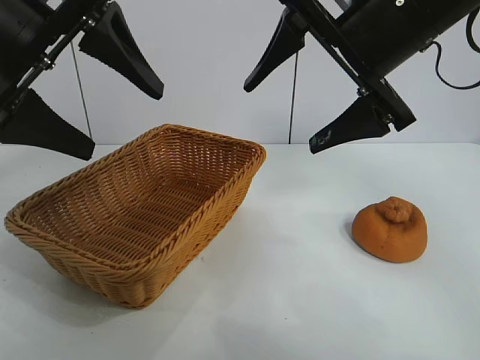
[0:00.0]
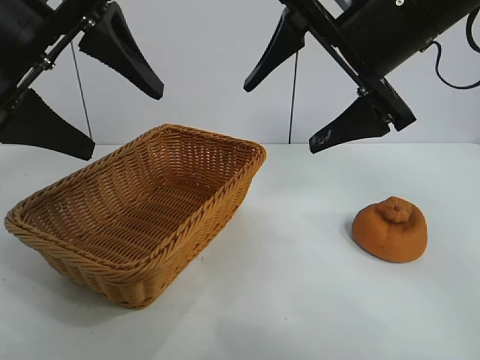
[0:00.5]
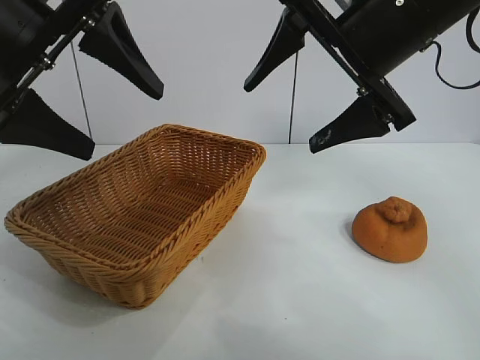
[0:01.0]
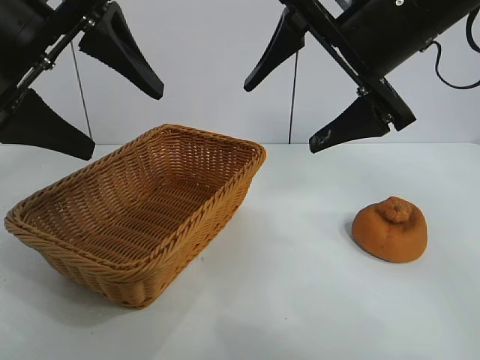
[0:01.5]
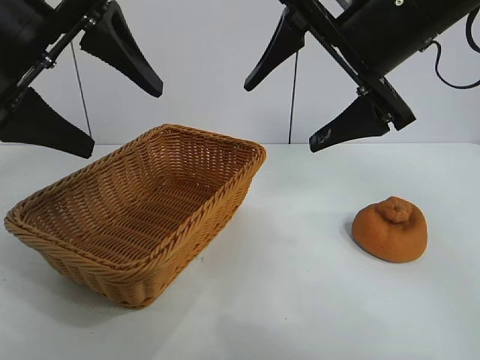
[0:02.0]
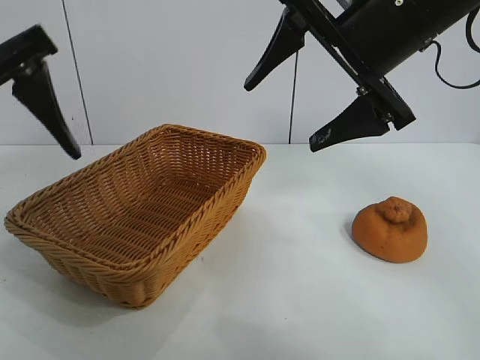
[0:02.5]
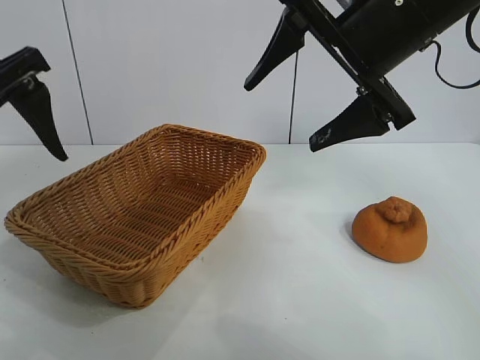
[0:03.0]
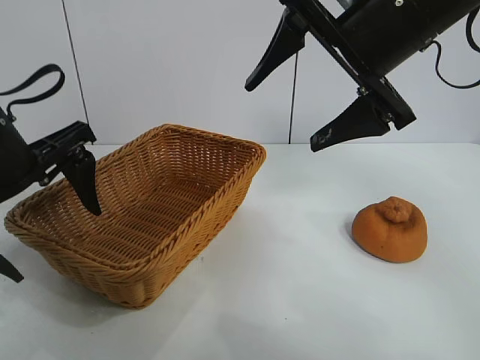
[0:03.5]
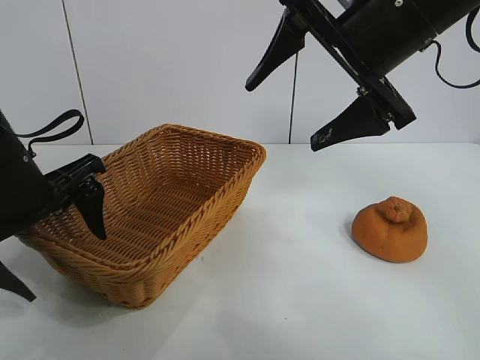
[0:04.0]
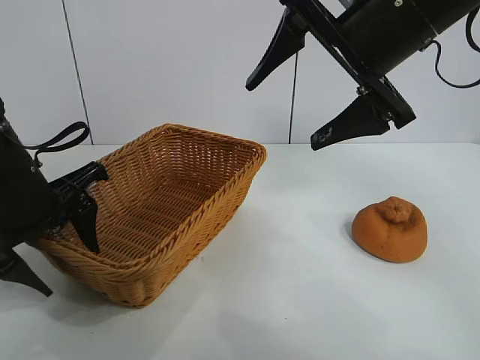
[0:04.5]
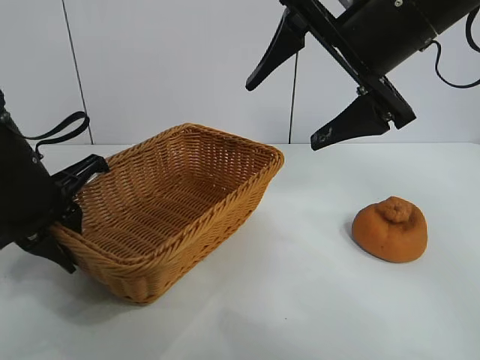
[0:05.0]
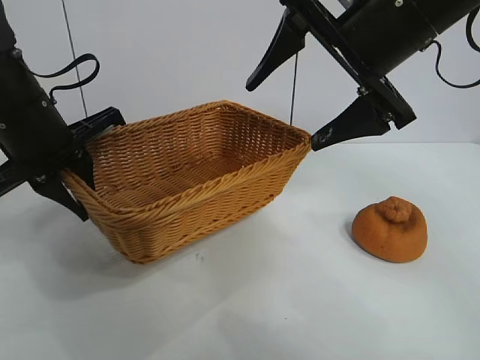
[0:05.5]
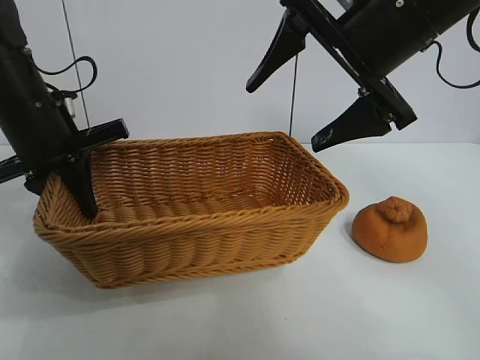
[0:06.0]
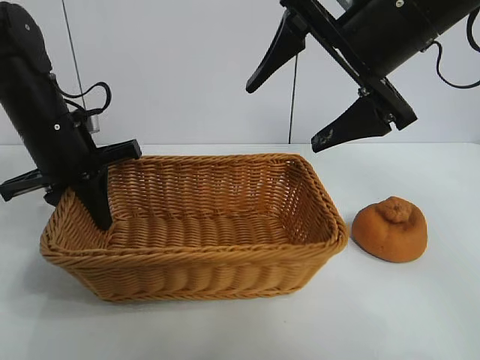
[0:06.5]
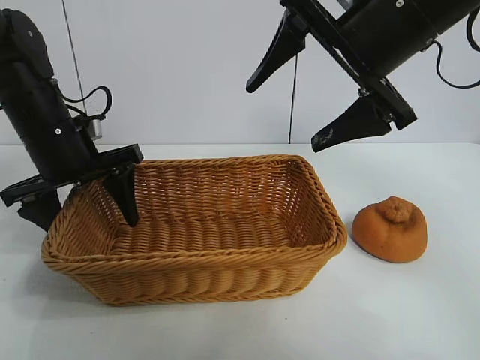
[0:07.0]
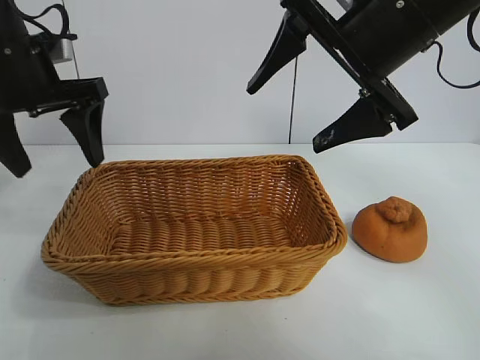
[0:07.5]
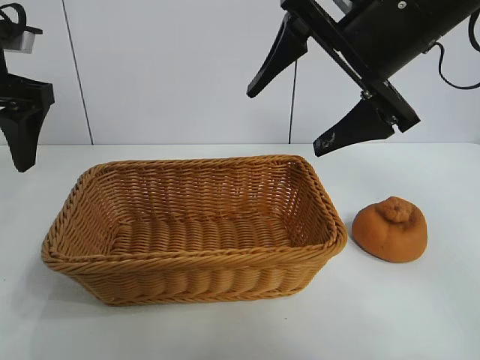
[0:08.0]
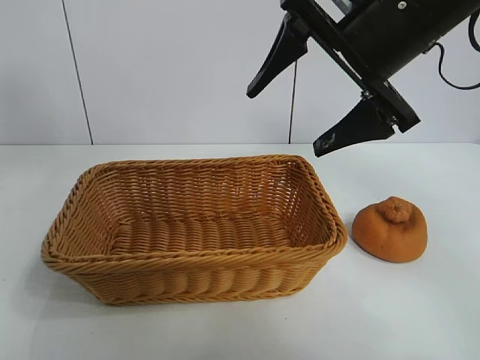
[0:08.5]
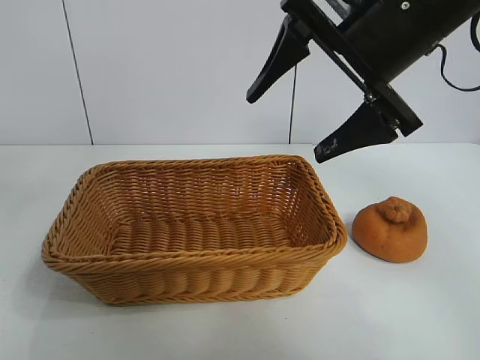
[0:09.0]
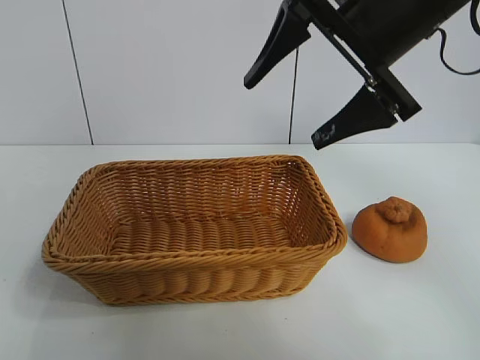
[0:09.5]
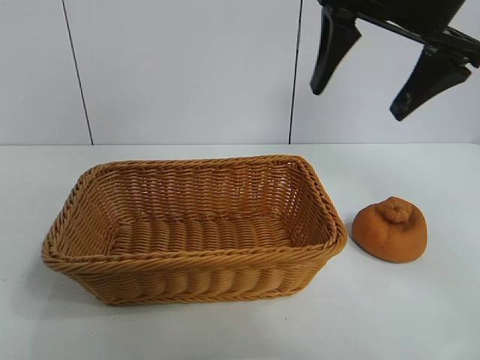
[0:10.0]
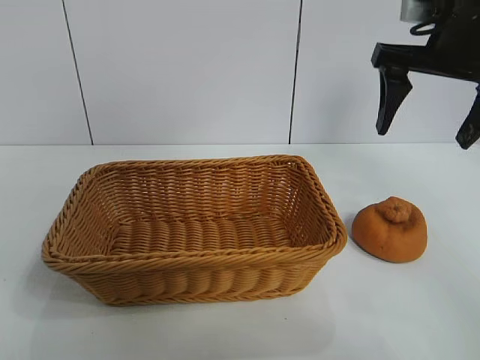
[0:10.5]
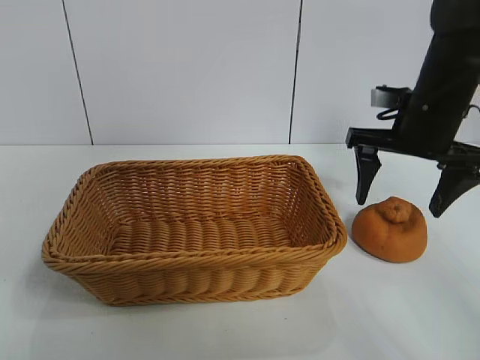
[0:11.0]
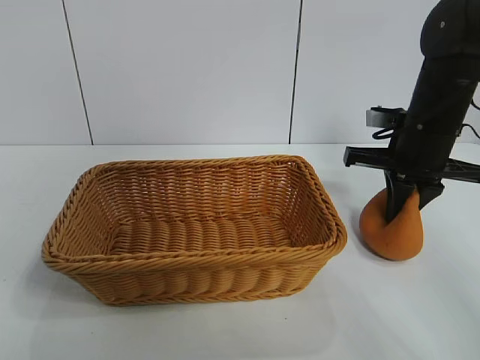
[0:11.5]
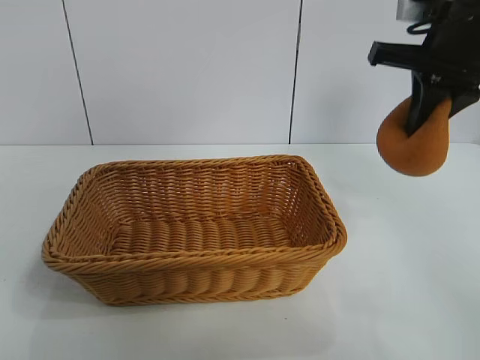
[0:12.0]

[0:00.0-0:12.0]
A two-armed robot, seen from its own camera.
Task of the whole recording: pick up the orange and put it into the basket.
Step, 0:02.0 to 0:04.5: Grasp the basket with left gripper.
Step, 0:05.0 to 0:07.0: Place the basket in the center of view with left gripper.
Step, 0:07.5 to 0:11.5: Grasp the orange with right gripper.

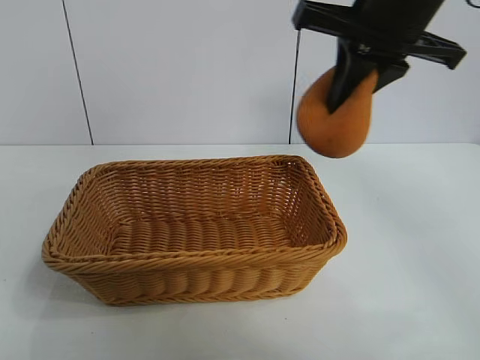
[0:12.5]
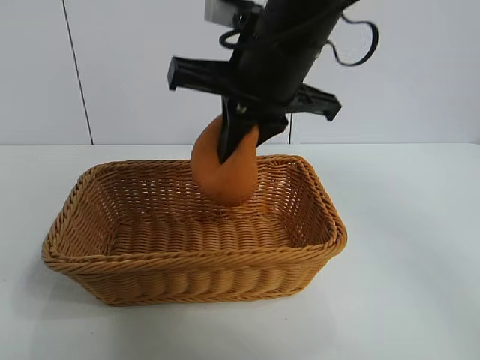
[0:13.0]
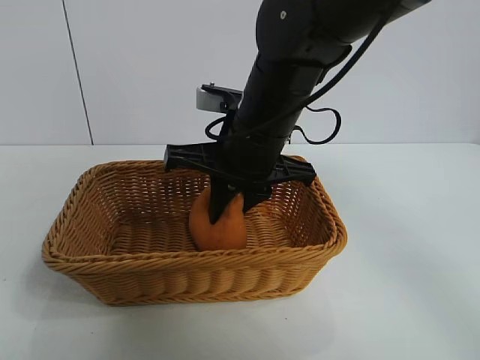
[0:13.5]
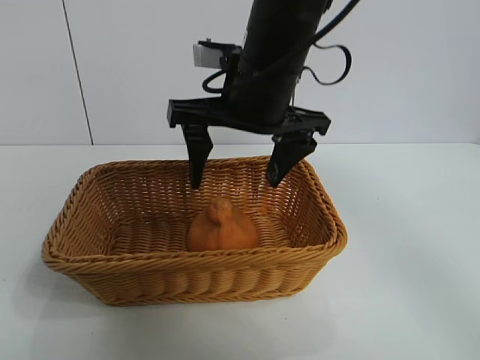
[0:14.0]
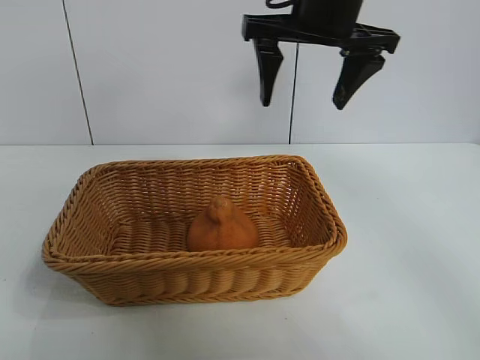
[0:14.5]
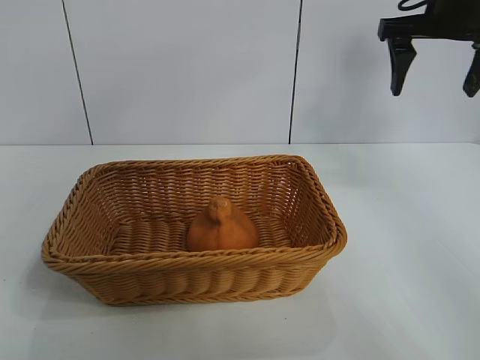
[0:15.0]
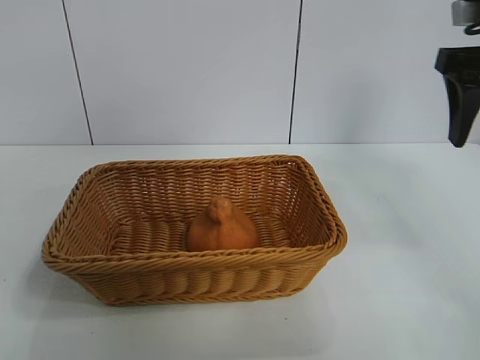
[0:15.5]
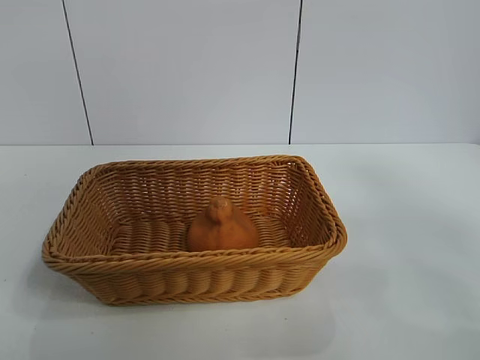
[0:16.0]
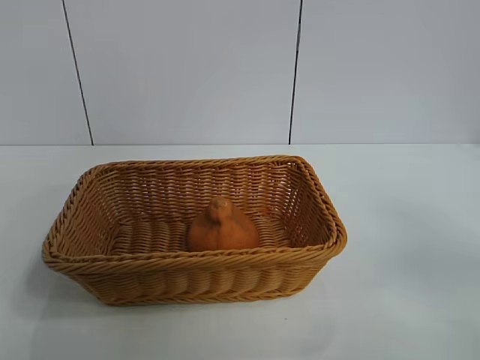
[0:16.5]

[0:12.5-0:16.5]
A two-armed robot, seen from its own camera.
Task of the whole recording: pick up the orange and put it into the basket.
Step, 0:12.5 to 0:13.5: Place the orange in the basket with right gripper.

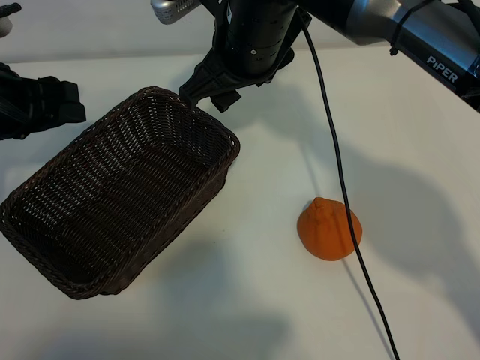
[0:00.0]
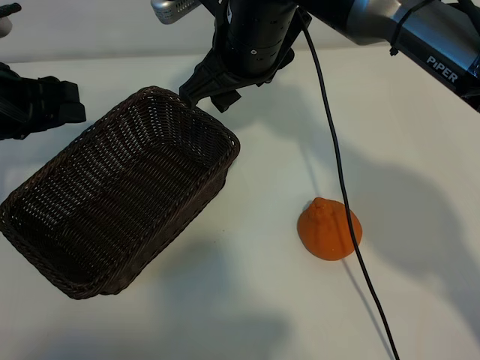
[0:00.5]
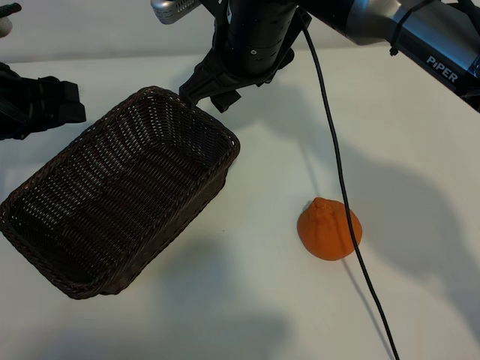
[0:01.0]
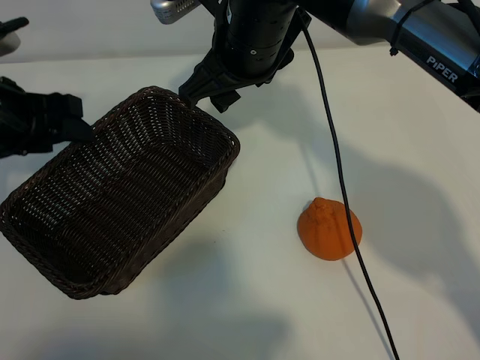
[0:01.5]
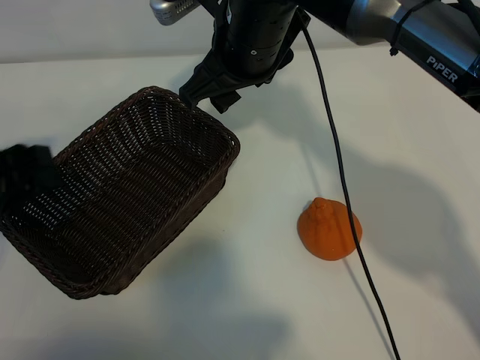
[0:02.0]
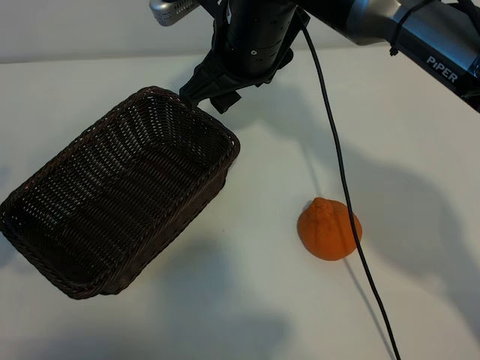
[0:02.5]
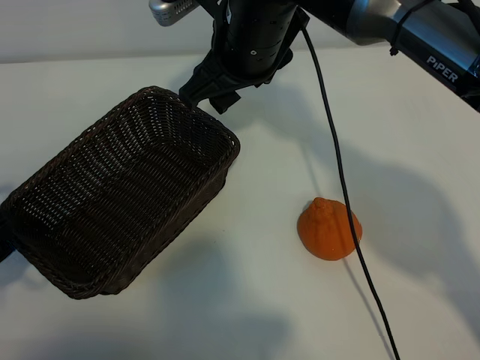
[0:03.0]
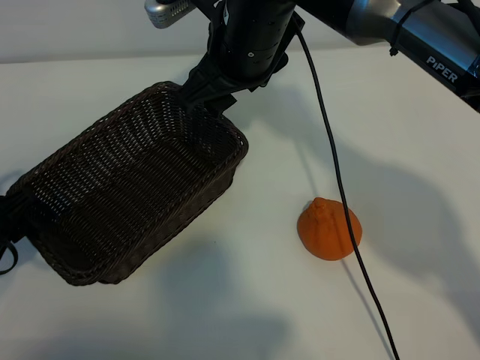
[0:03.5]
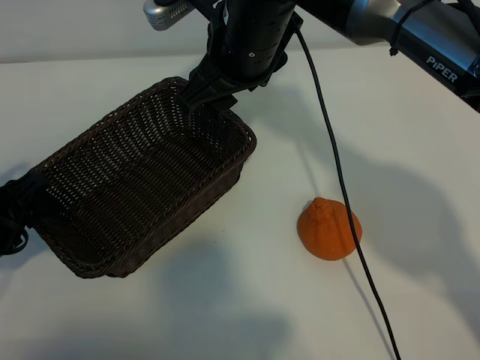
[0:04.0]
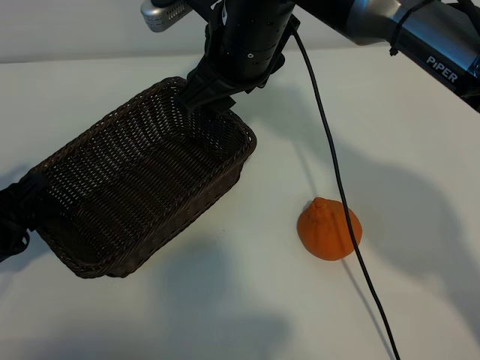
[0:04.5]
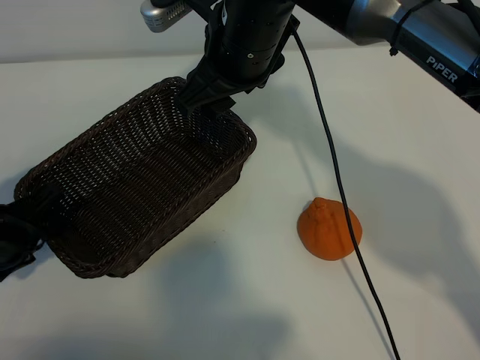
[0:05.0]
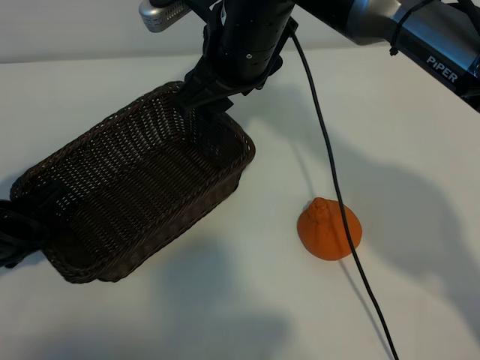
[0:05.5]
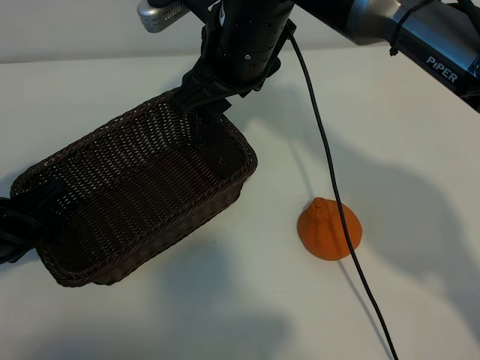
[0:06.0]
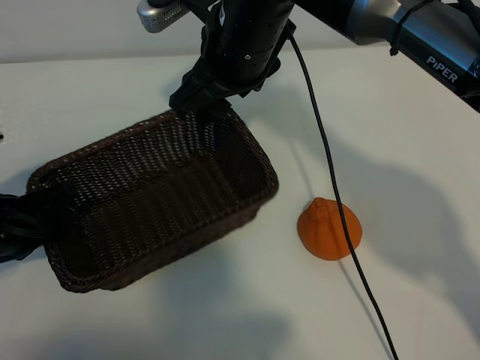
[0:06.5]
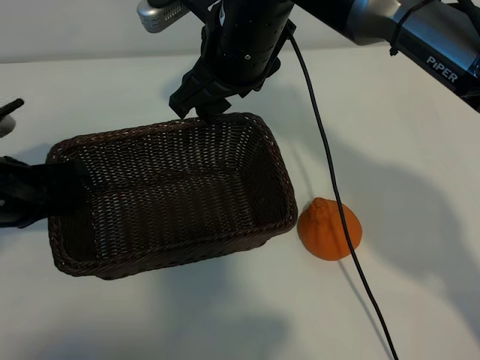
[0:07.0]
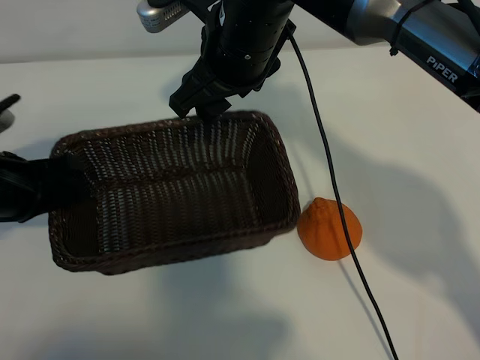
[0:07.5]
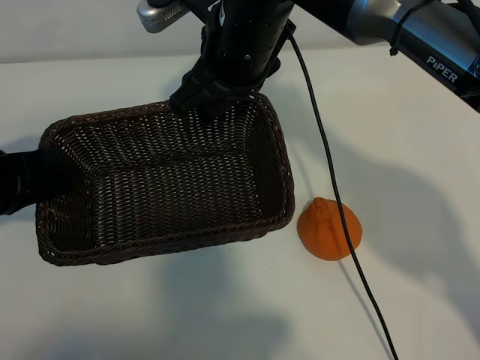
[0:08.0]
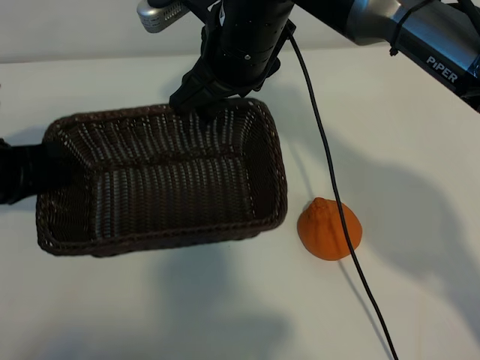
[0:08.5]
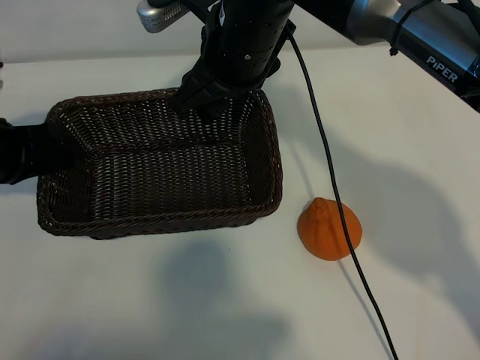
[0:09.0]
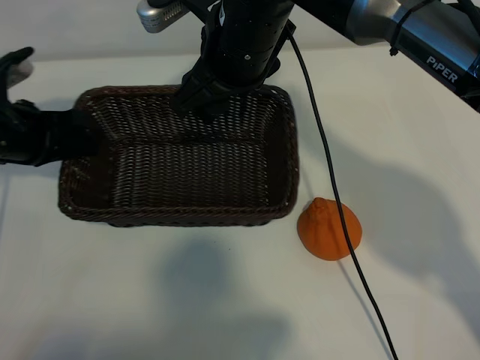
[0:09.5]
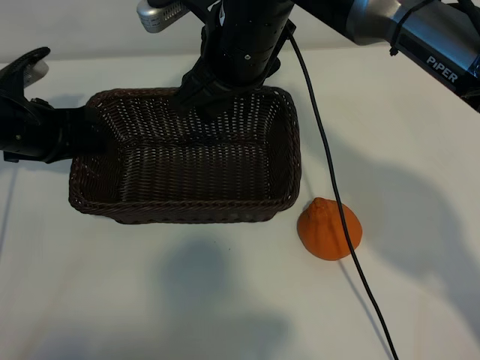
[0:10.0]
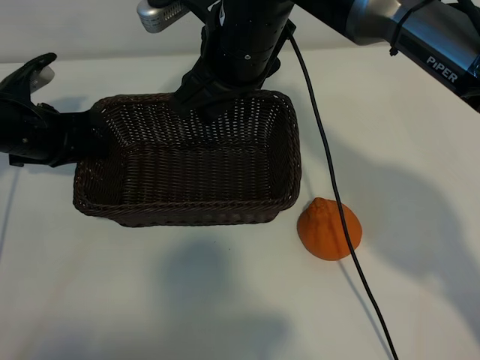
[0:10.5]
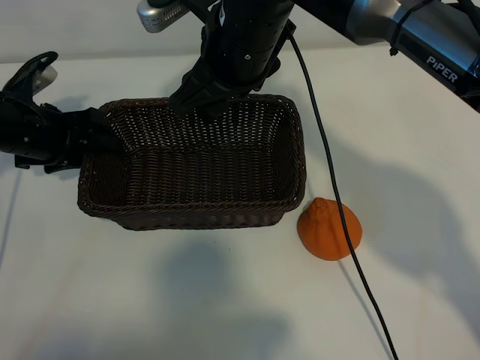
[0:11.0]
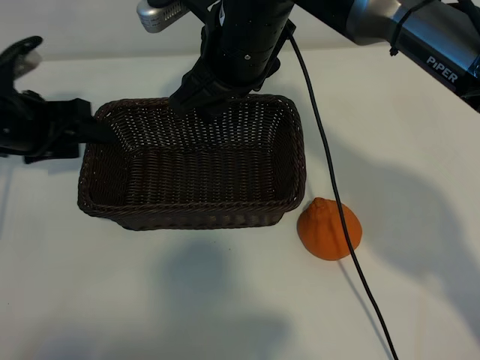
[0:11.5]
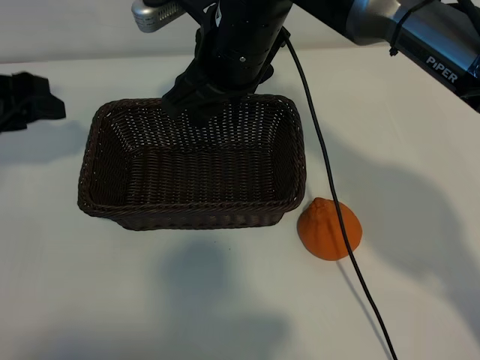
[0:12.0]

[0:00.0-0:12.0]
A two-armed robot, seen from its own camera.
Task of the whole recording: pick up the orange and put it into the basket.
Step, 0:01.5 to 0:05.5: Grasp the basket with left gripper.
Step, 0:06.0 to 0:10.5: Place the basket in the center of view with left gripper.
